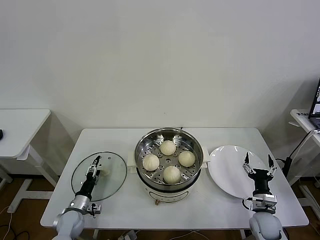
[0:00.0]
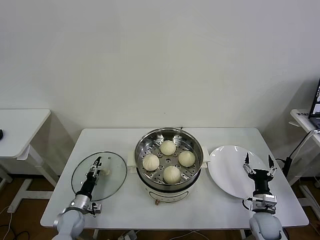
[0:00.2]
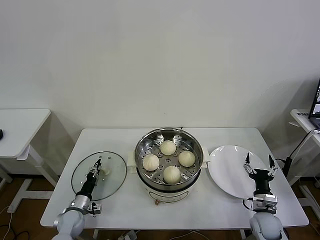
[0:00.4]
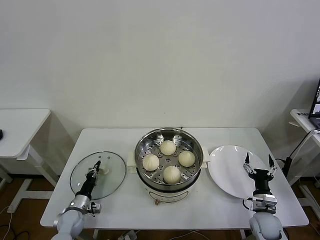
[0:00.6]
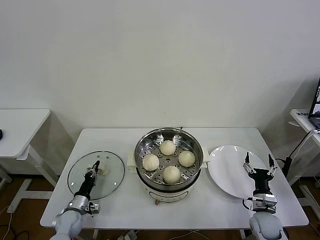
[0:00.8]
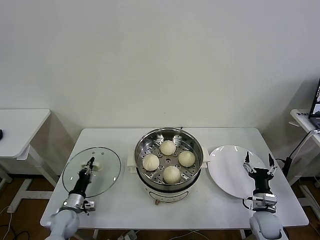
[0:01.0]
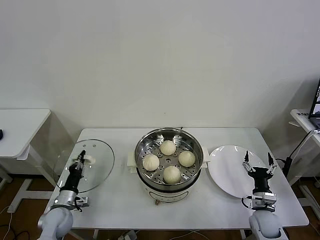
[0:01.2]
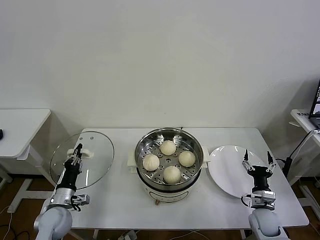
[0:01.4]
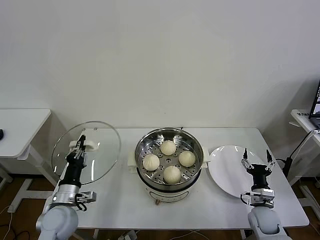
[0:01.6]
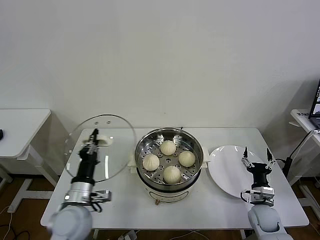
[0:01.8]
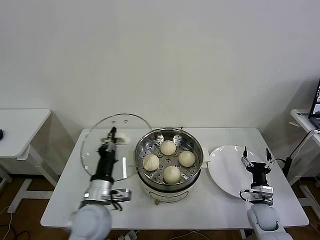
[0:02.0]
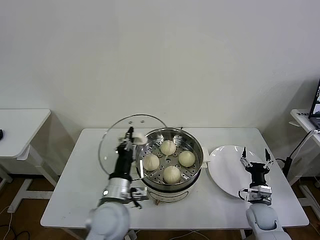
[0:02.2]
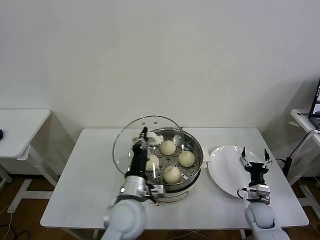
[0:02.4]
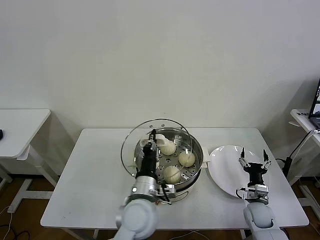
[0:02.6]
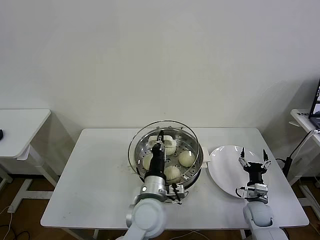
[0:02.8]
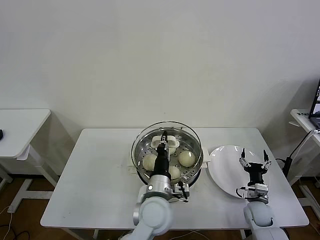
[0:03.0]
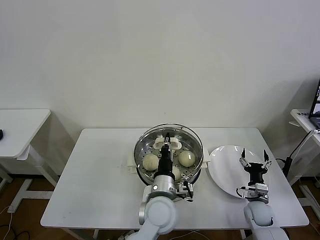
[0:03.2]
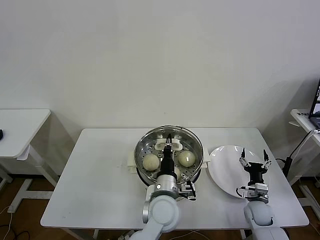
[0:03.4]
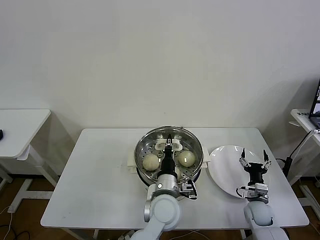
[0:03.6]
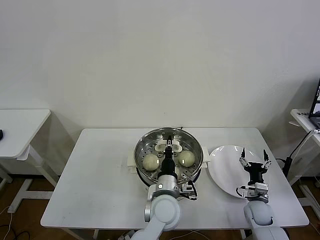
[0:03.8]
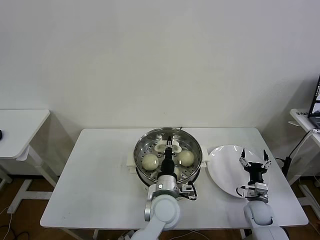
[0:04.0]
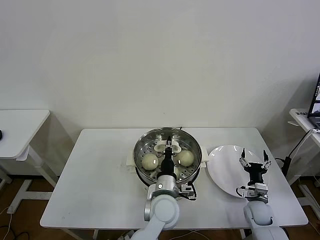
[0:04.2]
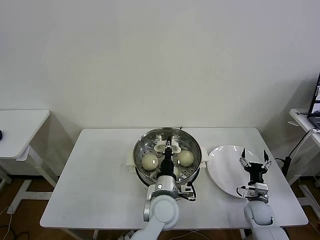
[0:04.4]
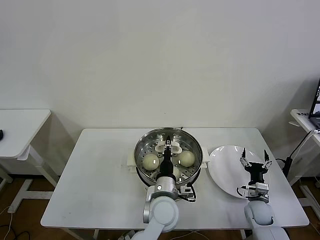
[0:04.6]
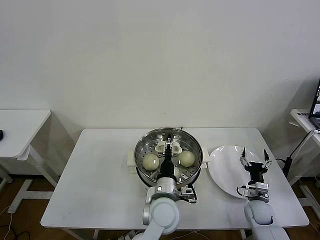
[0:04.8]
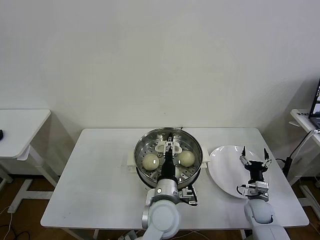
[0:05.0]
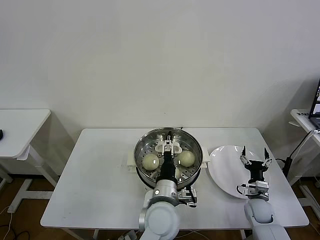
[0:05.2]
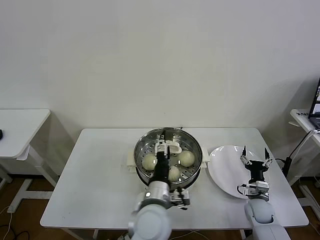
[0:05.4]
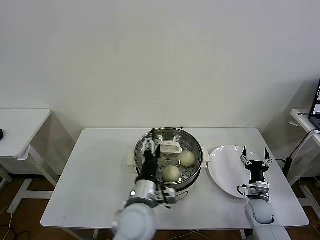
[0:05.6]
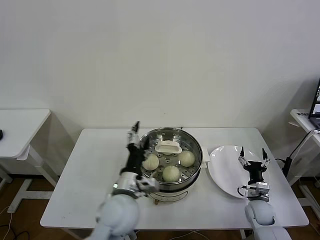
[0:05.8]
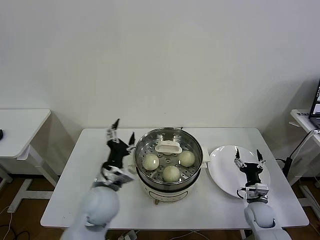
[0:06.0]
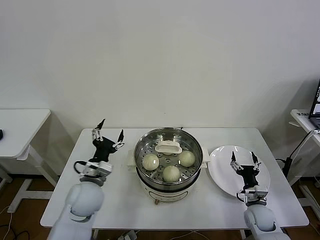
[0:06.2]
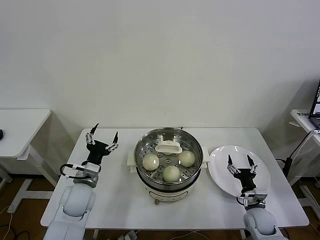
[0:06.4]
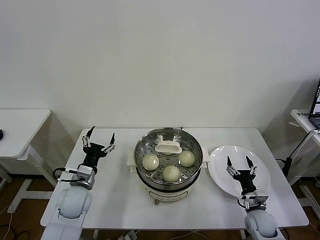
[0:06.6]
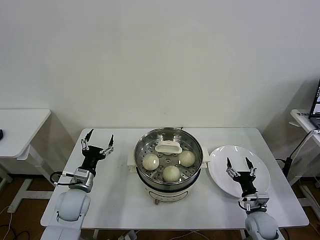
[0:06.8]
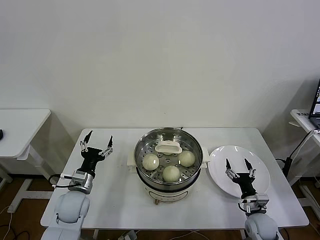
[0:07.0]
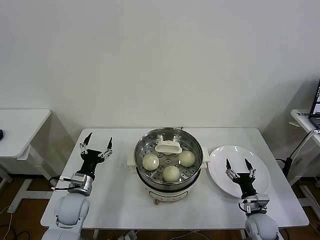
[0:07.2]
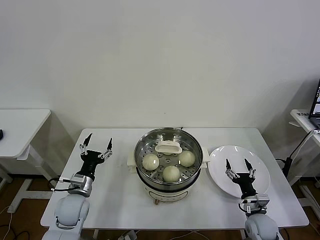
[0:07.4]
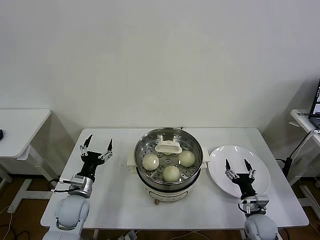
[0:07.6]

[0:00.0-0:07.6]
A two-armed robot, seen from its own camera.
Task of the whole recording: take steamed baozi put them in steamer then cover it.
Step, 0:01.0 to 0:04.8: Place the pot lid on the steamer with left gripper.
0:00.0 to 0:01.6: The left gripper goes approximately 15 cm upward, and closes.
0:01.6 to 0:03.0: The left gripper goes about 30 cm to the right.
0:03.0 to 0:04.6: The left gripper shifts by approximately 5 cm.
0:04.6 to 0:06.0: The left gripper shifts approximately 15 cm to the left and upward, and opens up.
0:06.0 to 0:07.6: The right gripper shifts by some 5 cm. The left gripper is displaced to the left and downward by some 20 cm.
